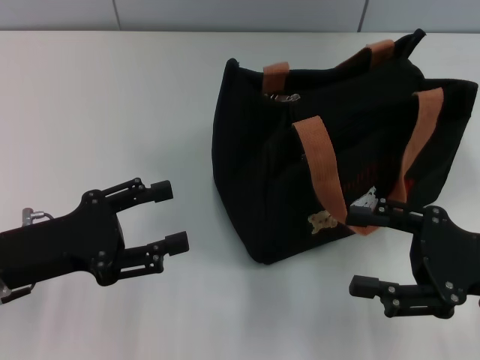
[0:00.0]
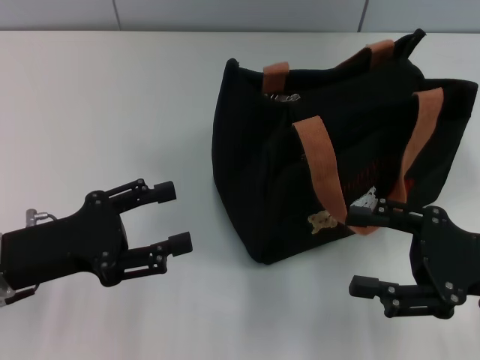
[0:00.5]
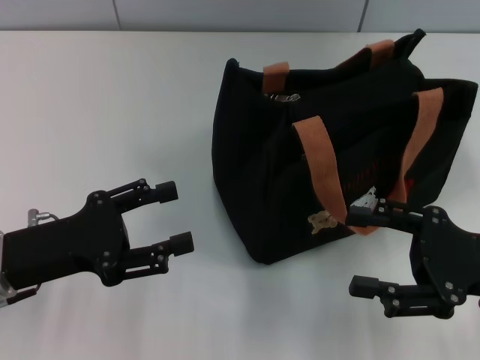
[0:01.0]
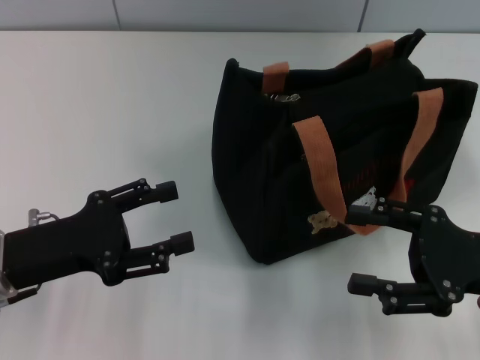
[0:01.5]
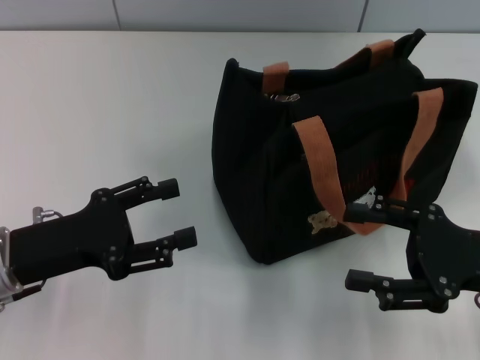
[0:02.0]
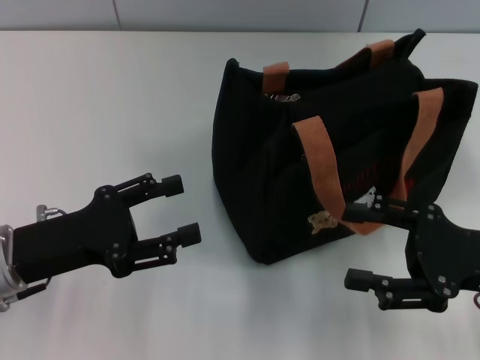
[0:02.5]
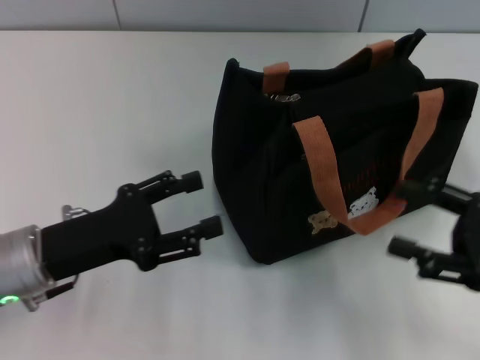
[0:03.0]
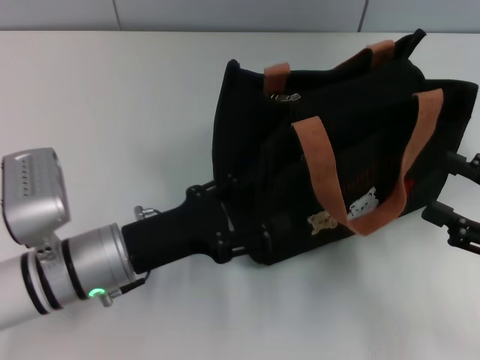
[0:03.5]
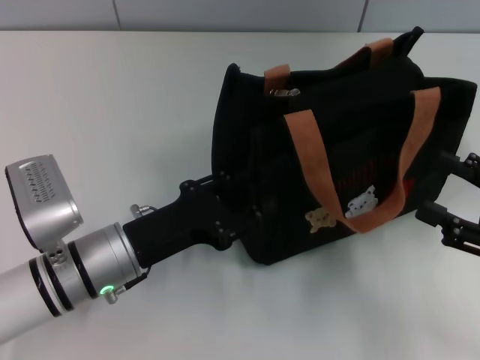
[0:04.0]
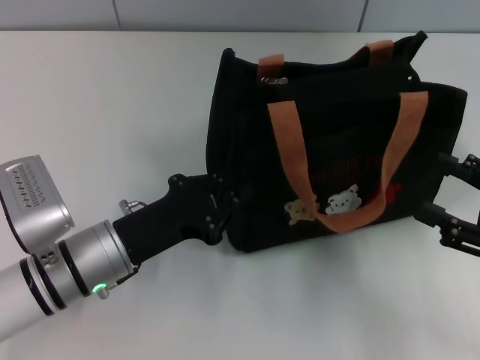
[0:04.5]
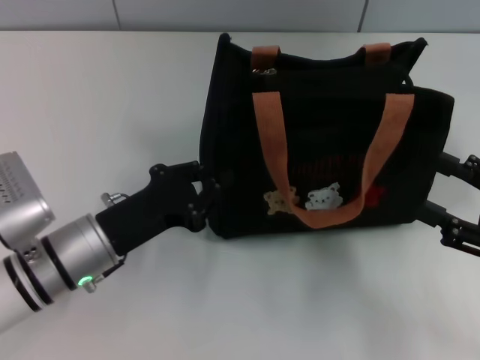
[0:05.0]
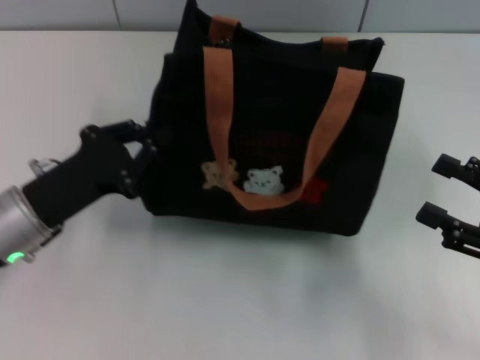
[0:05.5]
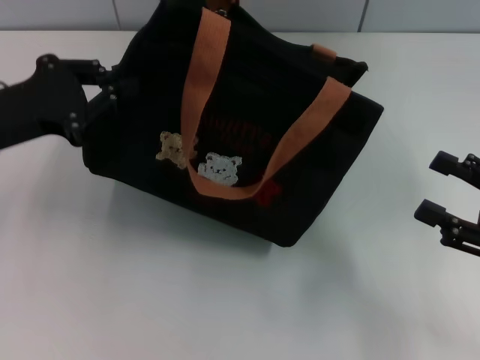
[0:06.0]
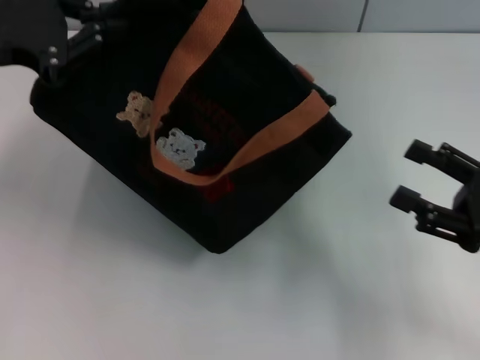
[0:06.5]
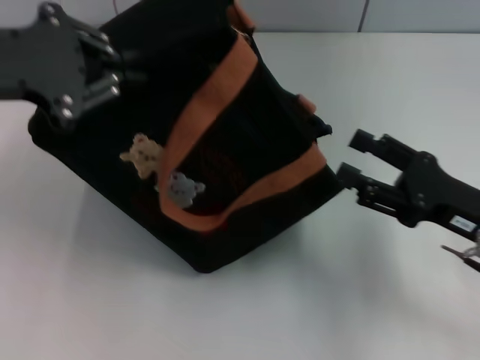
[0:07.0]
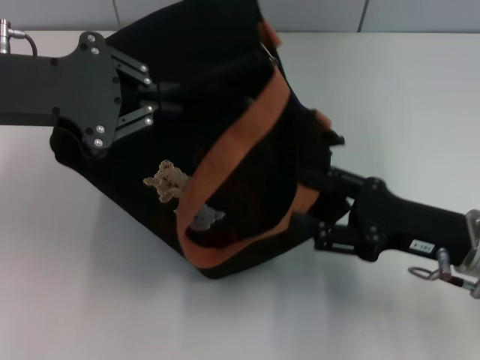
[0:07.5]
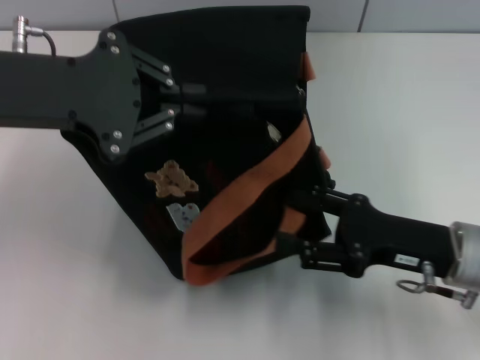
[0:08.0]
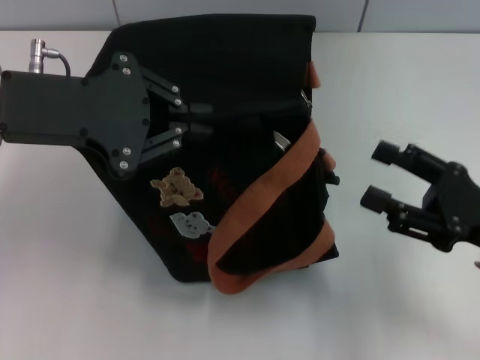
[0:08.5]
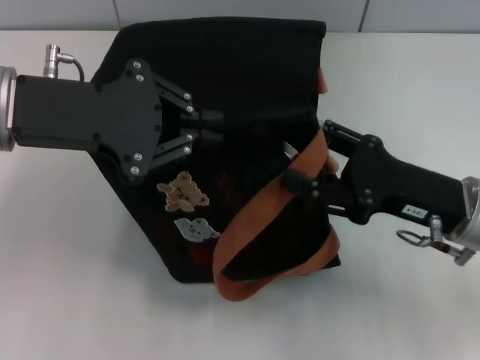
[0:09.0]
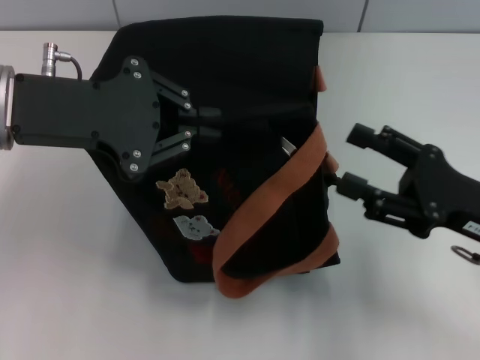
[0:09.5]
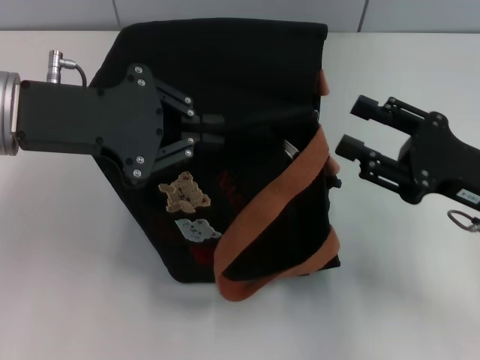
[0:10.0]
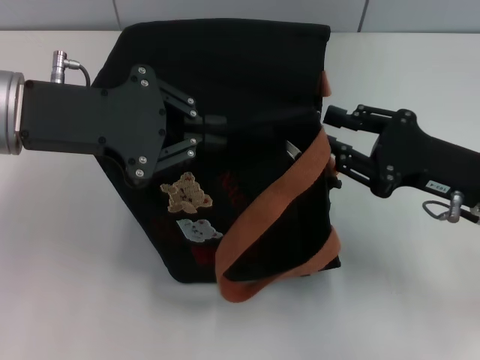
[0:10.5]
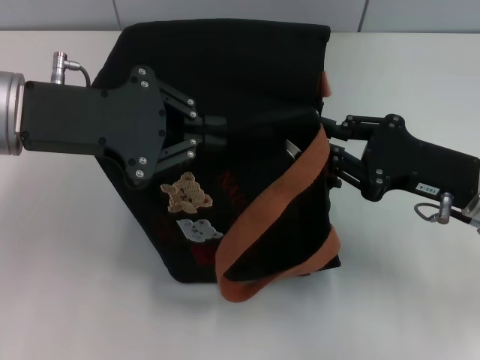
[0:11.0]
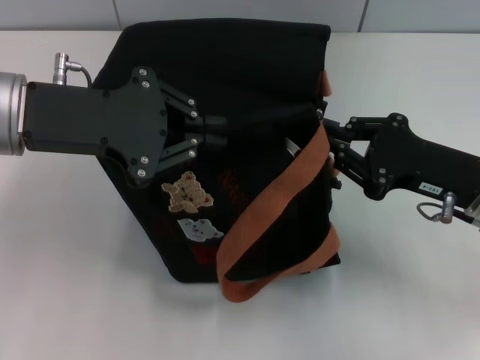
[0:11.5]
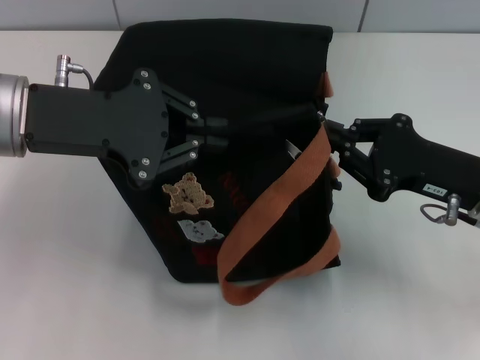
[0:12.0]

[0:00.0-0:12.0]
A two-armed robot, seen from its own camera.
0:00.0 to 0:02.0: The two grippers keep their place.
0:02.0 to 0:04.0: The left gripper travels to the right by roughly 10 cm, while the right gripper goes approximately 5 cm to the right.
0:04.0 to 0:06.0: The left gripper shifts some 20 cm upward, to the left and forward, and closes its fingers.
0:06.0 to 0:08.0: The right gripper goes some 10 cm to the left; the left gripper moves upward and to the right, approximately 10 cm.
0:08.0 to 0:10.0: The right gripper swings left and right, about 5 cm each way, with 2 reversals.
0:10.0 to 0:12.0: The right gripper closes its fingers.

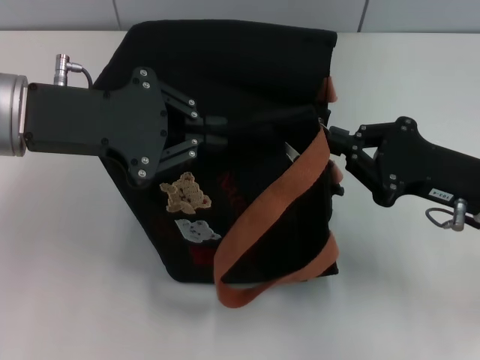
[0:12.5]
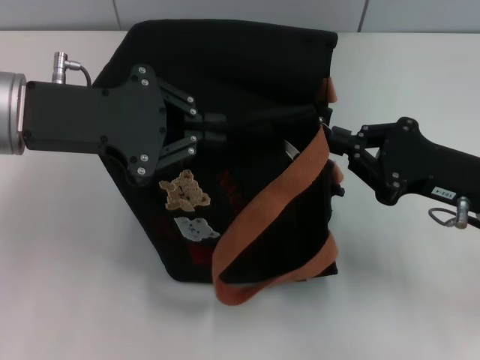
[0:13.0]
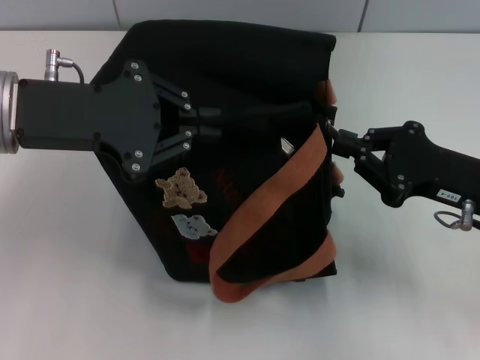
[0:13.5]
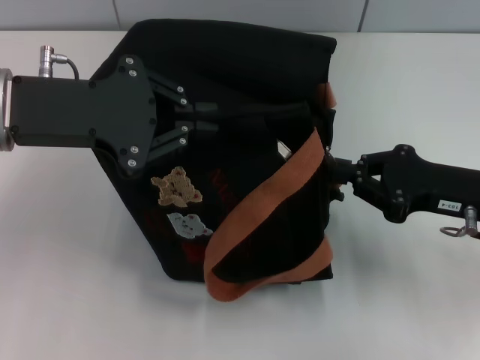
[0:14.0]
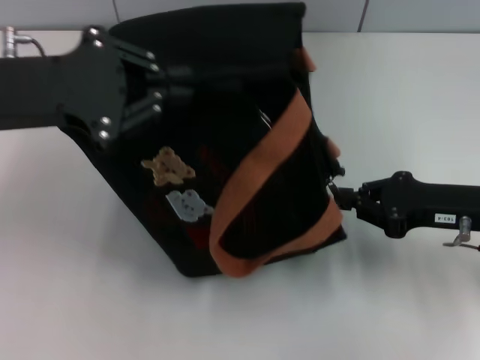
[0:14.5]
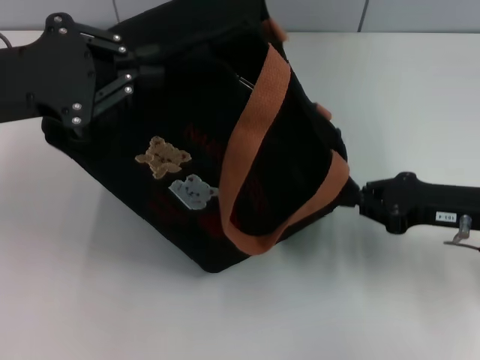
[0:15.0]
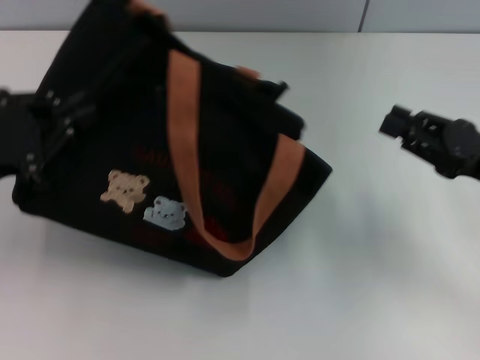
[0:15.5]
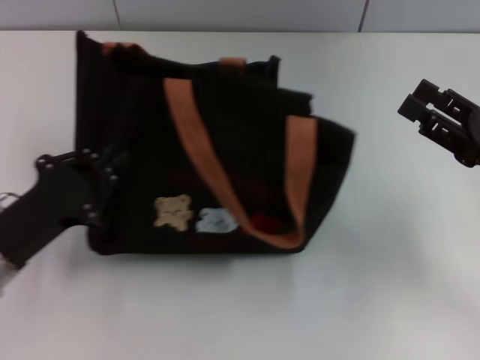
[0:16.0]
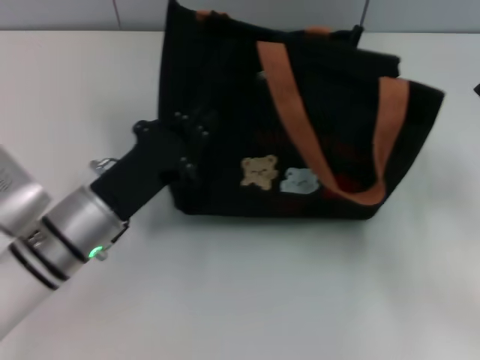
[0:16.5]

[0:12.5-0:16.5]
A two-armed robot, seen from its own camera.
Step, 0:12.5 to 0:15.0: Pull open the zipper with your right hand.
Step, 0:15.5 to 0:16.5: Grab the bag with your left hand.
0:14.5 to 0:16.5: The right gripper shifts roughly 10 cm backward and to the right, and opens its fingers; the left gripper is displaced downward and to the right by approximately 20 cm.

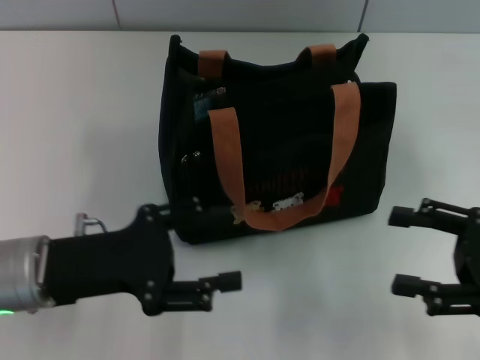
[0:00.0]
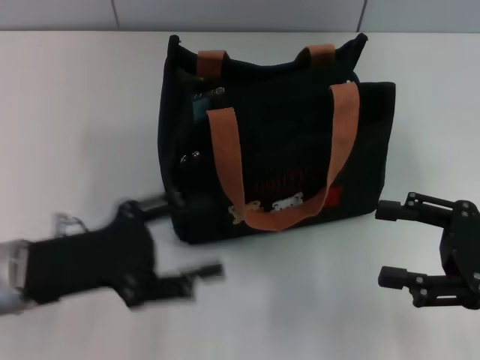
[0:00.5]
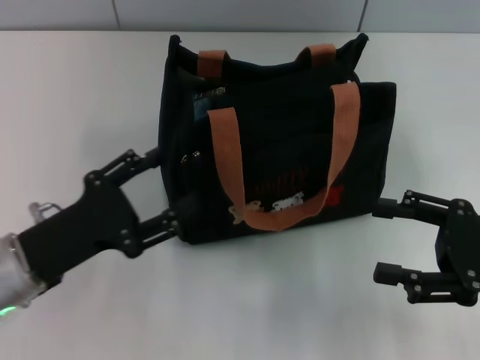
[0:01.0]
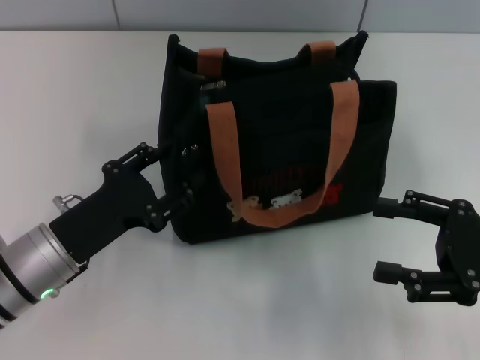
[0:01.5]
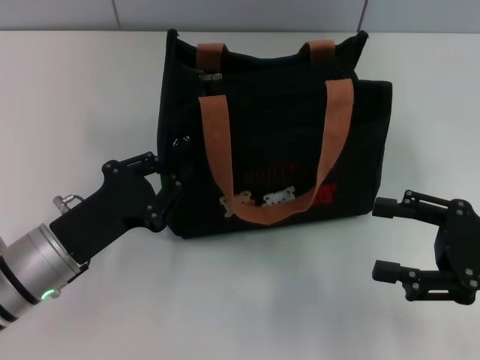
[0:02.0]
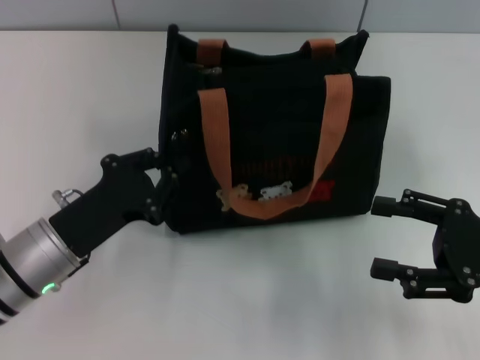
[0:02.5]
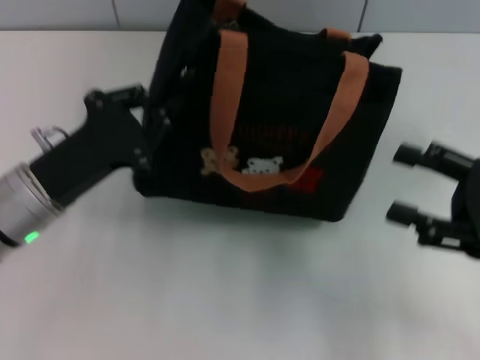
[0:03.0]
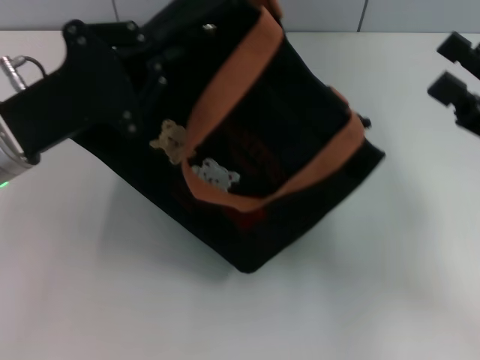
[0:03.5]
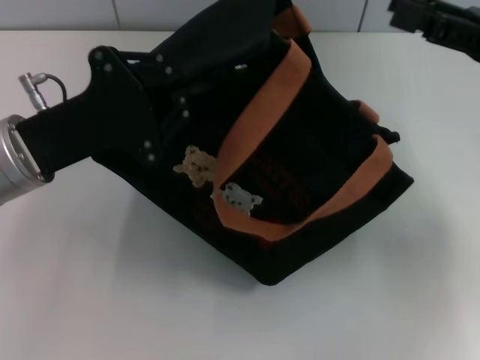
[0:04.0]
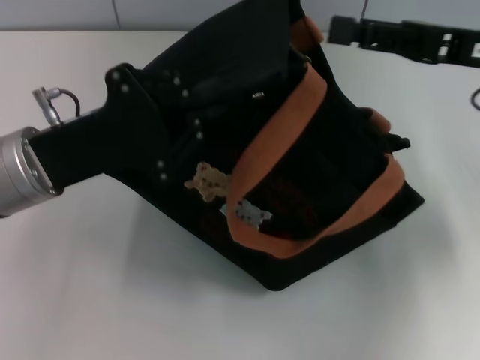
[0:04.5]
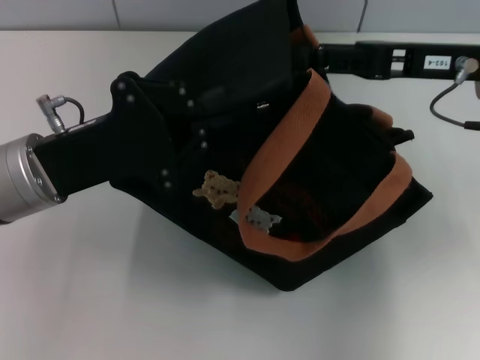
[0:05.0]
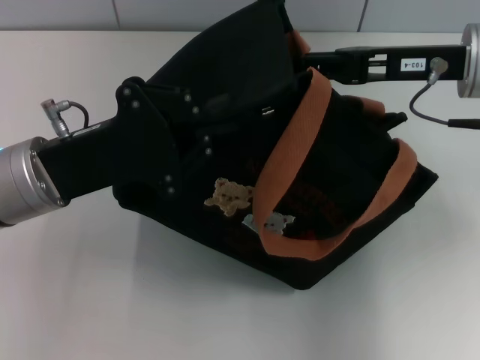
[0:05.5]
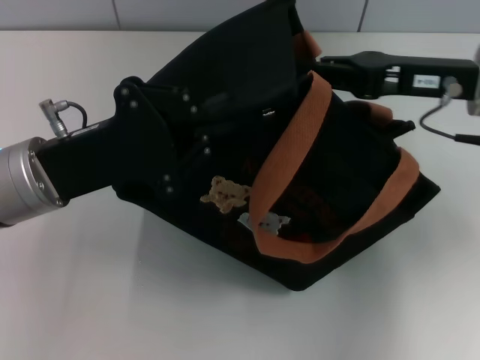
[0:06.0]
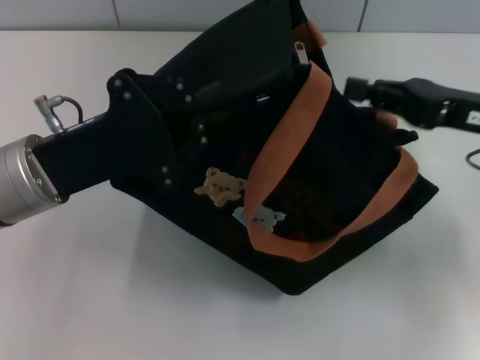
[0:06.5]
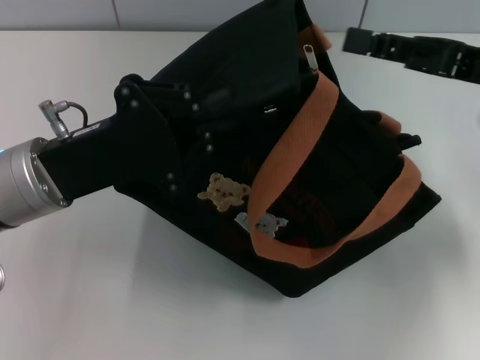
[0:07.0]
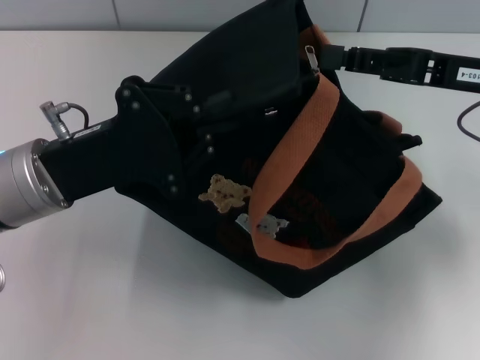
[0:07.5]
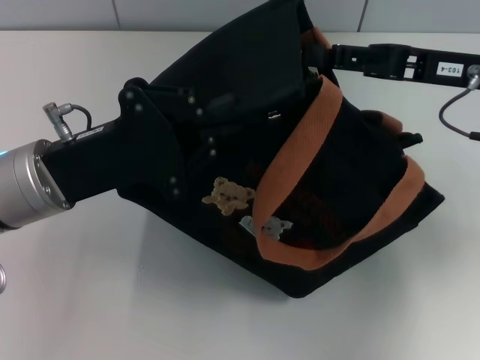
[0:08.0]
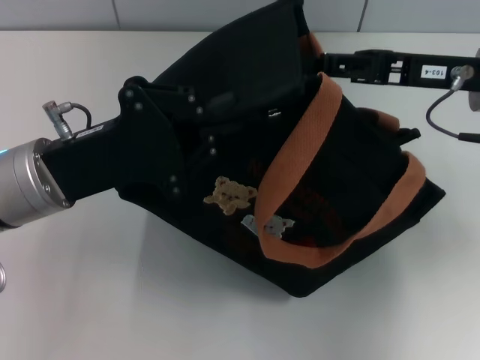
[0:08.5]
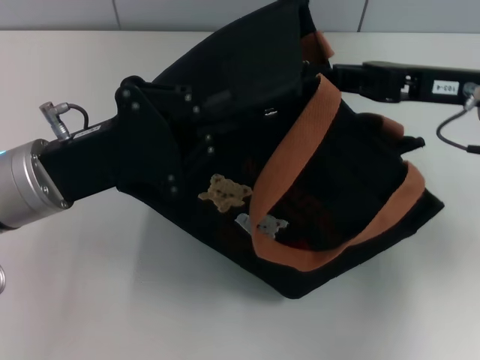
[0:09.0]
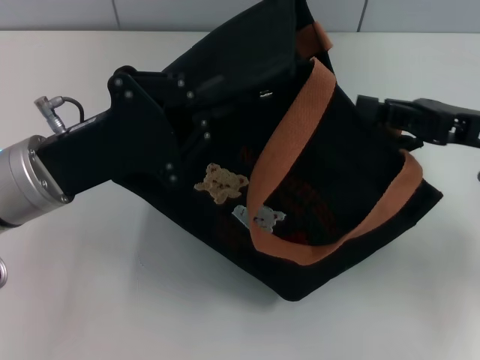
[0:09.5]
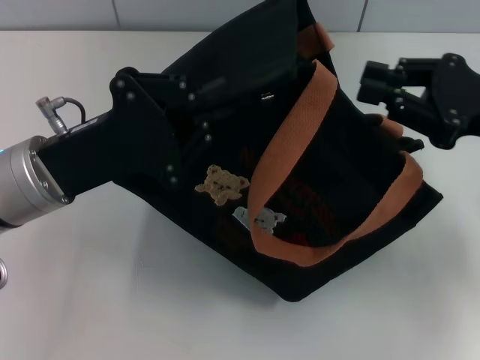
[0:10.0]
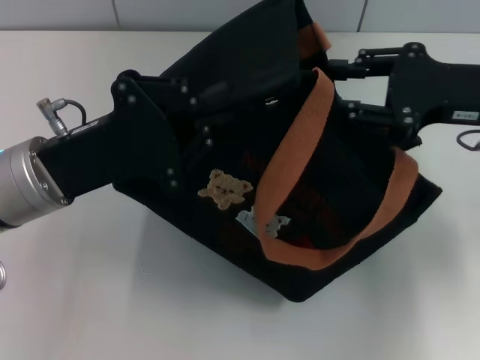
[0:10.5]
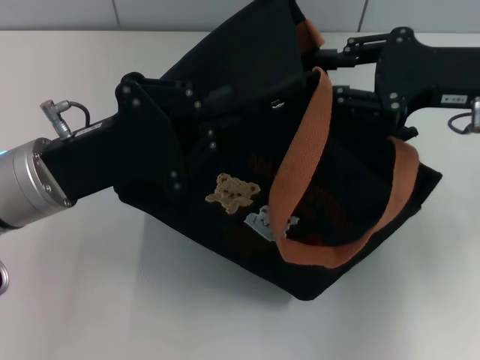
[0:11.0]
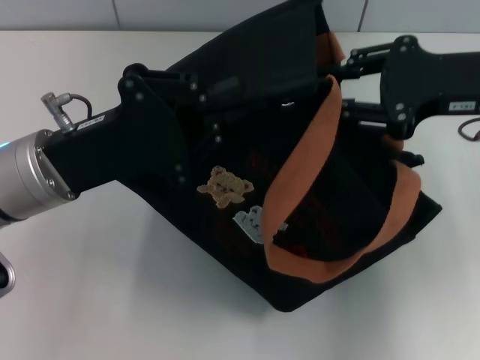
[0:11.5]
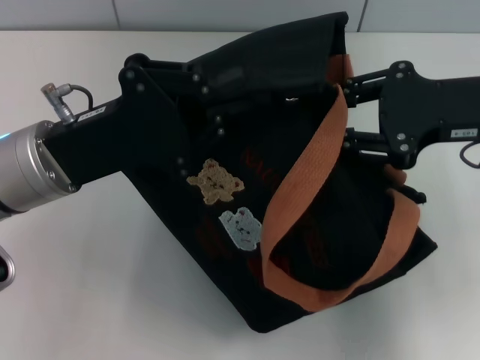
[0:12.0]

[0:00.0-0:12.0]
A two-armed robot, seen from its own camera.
0:00.0 to 0:02.0: The left gripper changes place by roughly 5 cm, and closes.
0:02.0 to 0:04.0: The grippers both shift upward and forward by about 10 cm.
0:04.0 to 0:06.0: The right gripper moves to the left, approximately 5 cm, and closes.
0:06.0 to 0:08.0: There are only small adjustments of the grippers.
0:08.0 to 0:10.0: The right gripper ends up some 5 cm from where it was.
0:10.0 to 0:12.0: The right gripper opens its fingers.
